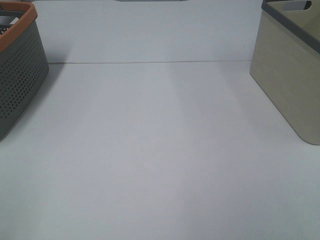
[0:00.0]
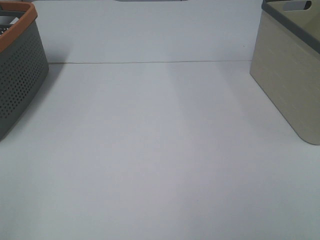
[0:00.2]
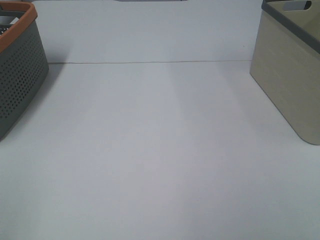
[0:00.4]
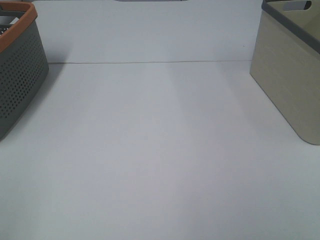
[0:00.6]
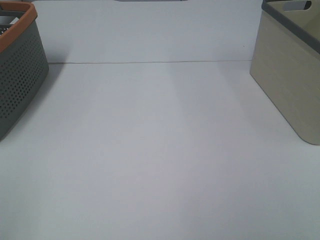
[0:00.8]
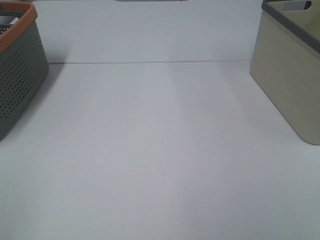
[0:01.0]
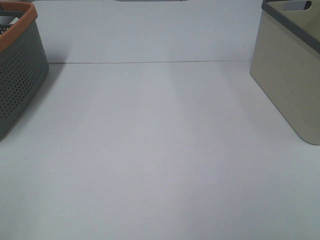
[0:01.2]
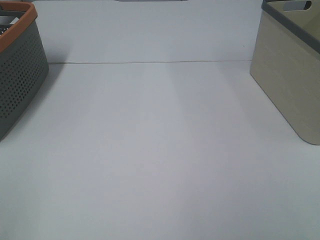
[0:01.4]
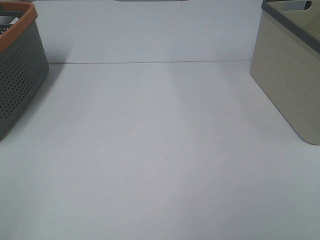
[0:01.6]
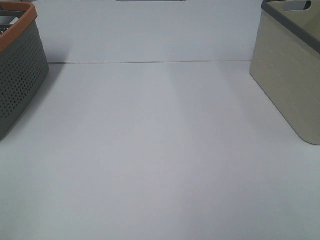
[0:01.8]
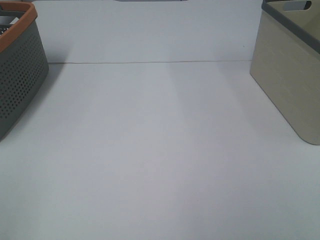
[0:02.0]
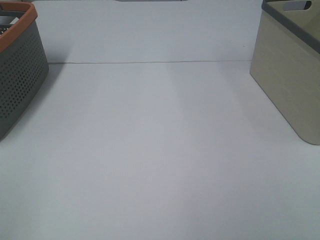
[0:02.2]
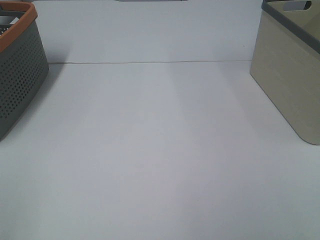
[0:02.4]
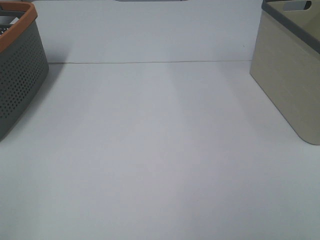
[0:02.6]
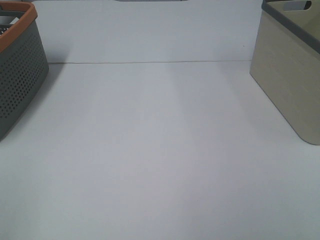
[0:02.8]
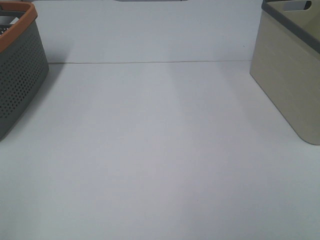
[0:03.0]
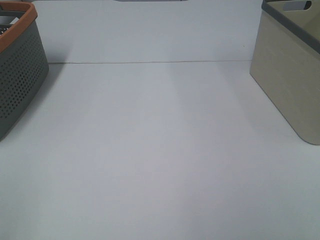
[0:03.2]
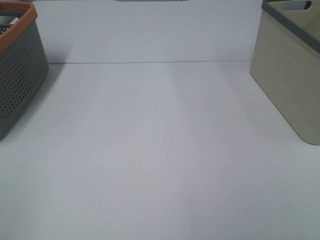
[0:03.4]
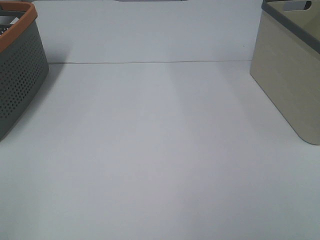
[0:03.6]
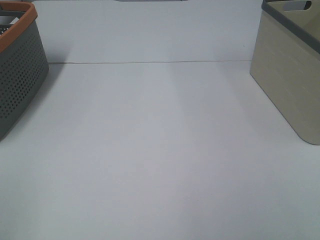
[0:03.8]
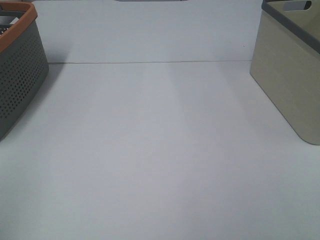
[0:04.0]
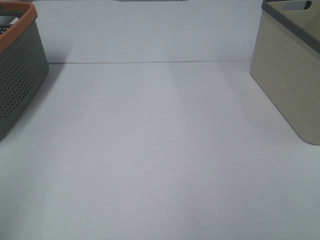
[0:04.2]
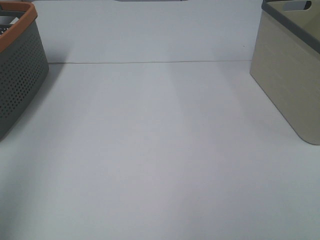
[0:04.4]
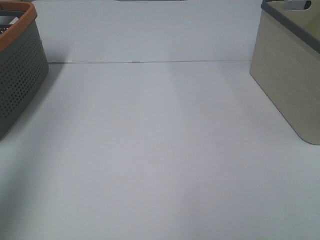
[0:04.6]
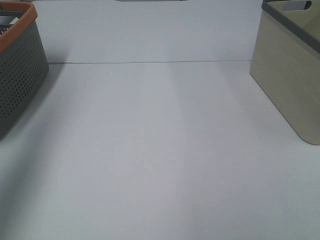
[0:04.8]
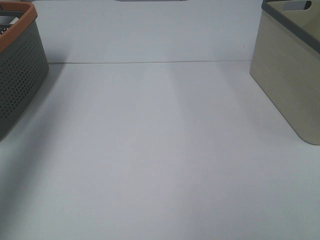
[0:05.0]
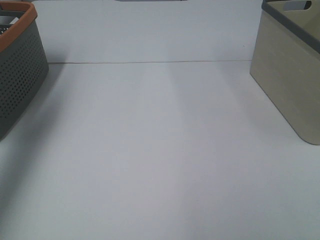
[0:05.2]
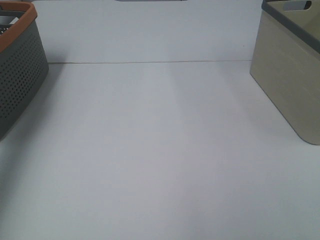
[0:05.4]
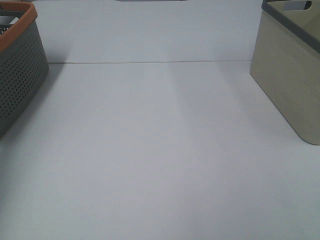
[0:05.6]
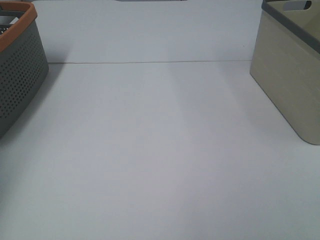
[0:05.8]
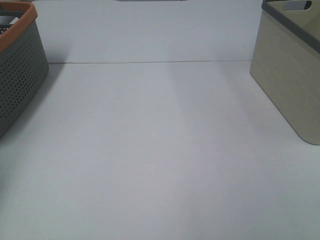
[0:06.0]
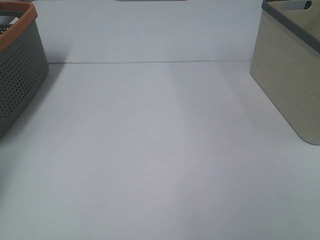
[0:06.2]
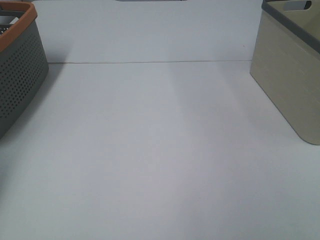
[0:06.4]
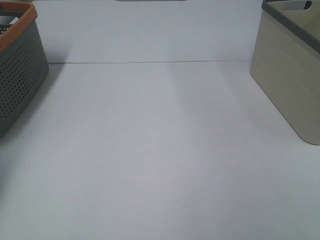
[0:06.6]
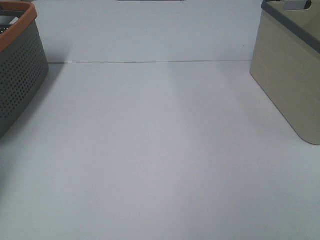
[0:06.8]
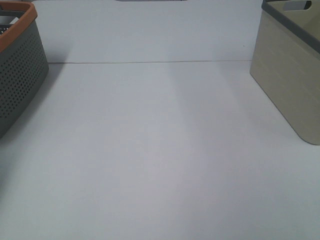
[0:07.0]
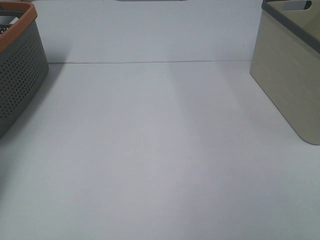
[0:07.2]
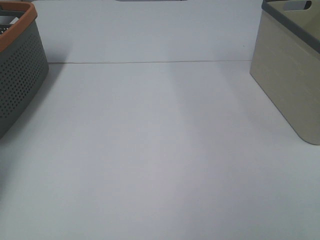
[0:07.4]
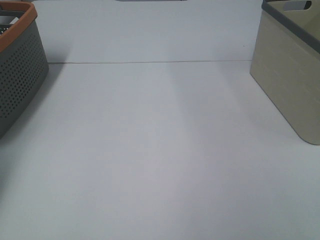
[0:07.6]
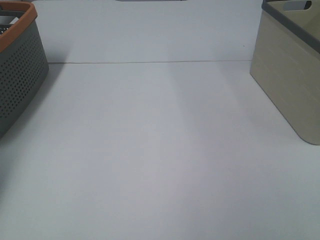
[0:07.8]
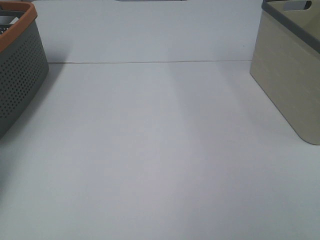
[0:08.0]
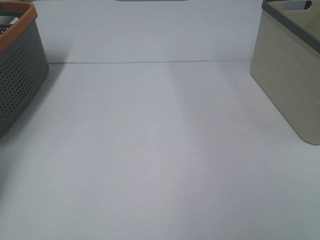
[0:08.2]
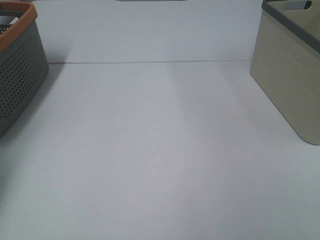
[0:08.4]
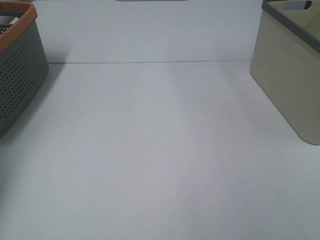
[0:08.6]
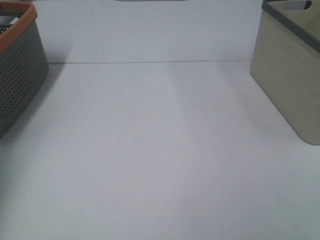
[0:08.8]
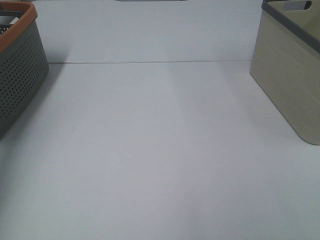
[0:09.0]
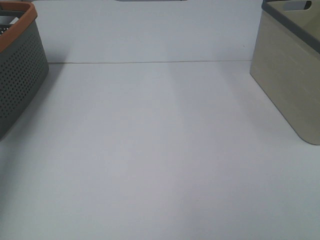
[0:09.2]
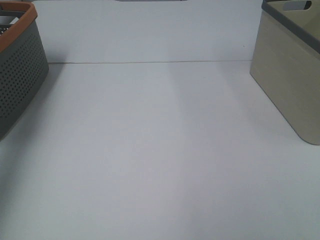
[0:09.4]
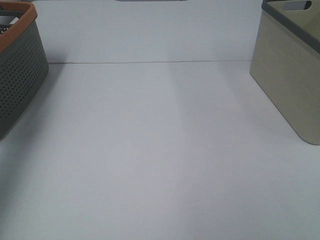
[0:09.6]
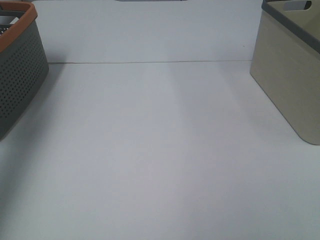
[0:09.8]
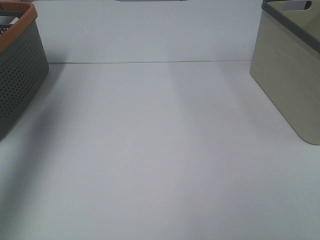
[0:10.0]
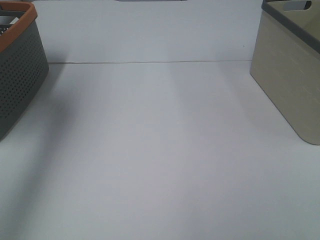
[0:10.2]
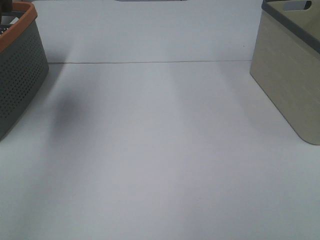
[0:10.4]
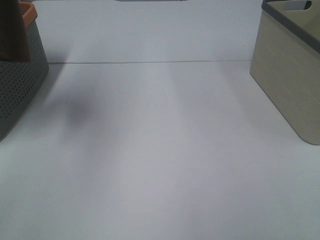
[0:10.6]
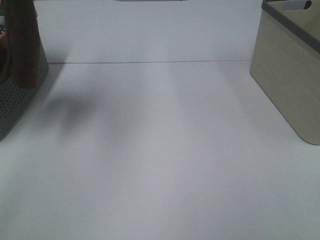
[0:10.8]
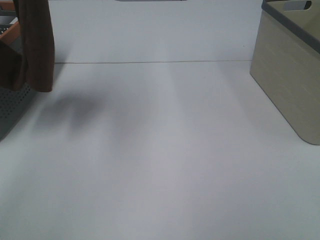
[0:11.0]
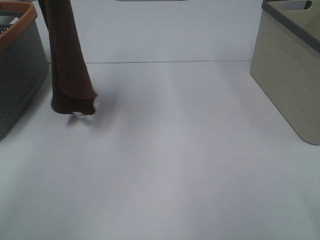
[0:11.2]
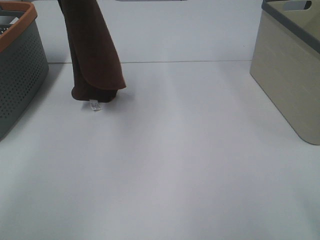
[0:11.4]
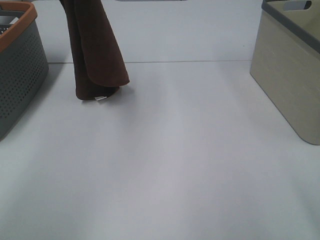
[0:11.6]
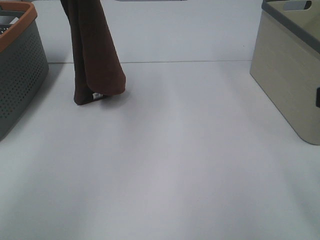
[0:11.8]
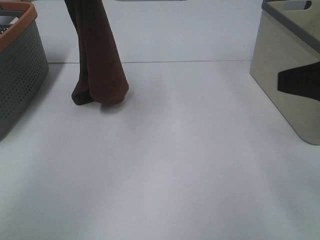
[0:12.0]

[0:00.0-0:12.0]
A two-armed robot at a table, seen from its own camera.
Task of the whole recording: Remove the towel and place it.
0:00.0 to 0:03.0: Both grippers stay about where they are.
0:03.0 to 0:04.4: The left gripper goes about 15 cm forward and upward.
0:04.4 to 0:06.0: The left gripper heads forward and to the left, covering approximately 35 cm.
0:09.0 to 0:10.4: The left gripper is displaced to the right, upward and backward by about 25 cm.
0:10.4 to 0:12.0: The left gripper goes some 25 cm downward, to the right and forward; the right gripper moves forward, approximately 20 cm.

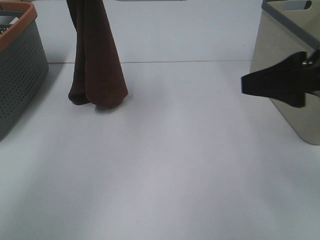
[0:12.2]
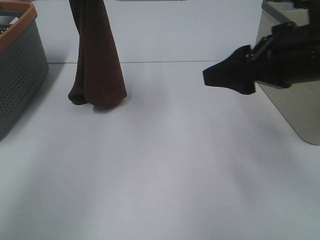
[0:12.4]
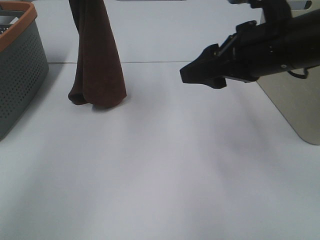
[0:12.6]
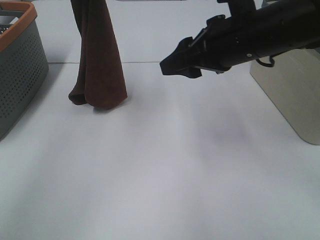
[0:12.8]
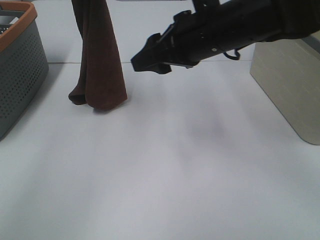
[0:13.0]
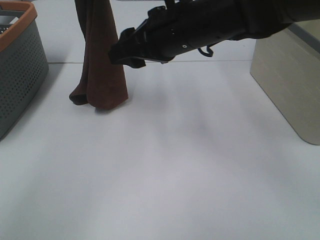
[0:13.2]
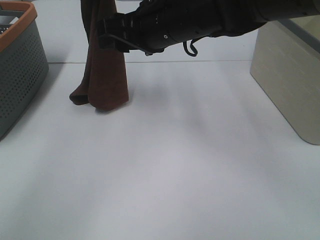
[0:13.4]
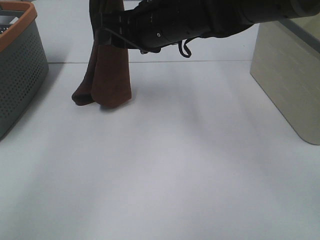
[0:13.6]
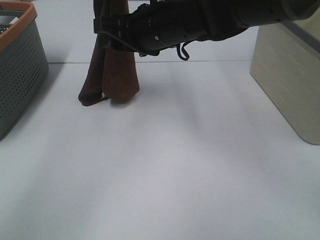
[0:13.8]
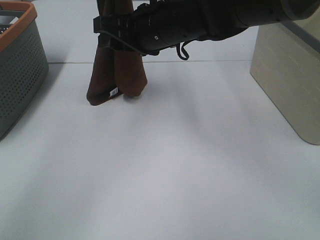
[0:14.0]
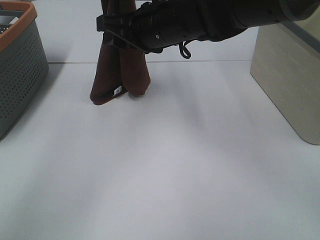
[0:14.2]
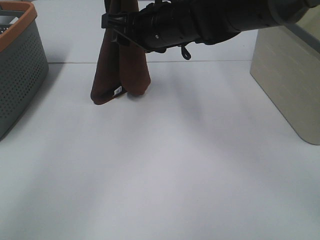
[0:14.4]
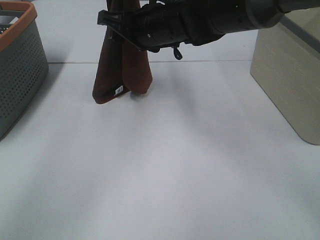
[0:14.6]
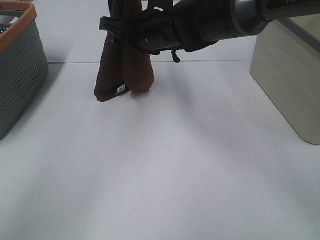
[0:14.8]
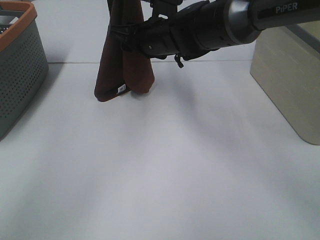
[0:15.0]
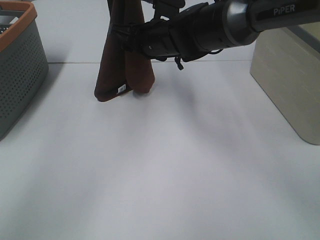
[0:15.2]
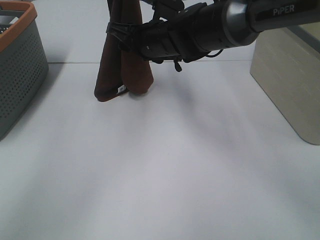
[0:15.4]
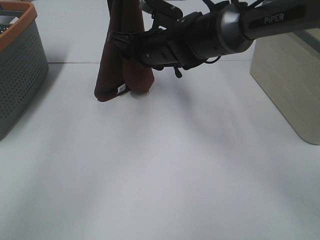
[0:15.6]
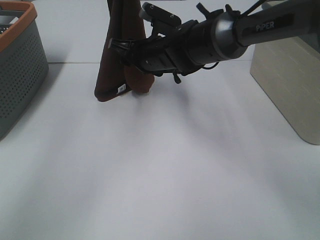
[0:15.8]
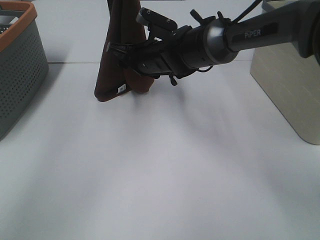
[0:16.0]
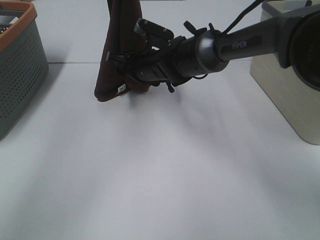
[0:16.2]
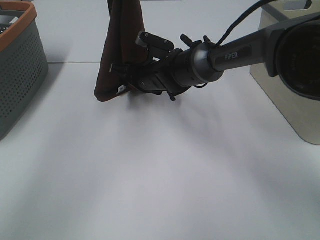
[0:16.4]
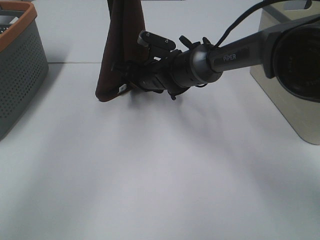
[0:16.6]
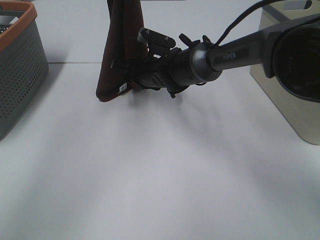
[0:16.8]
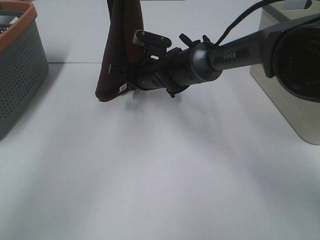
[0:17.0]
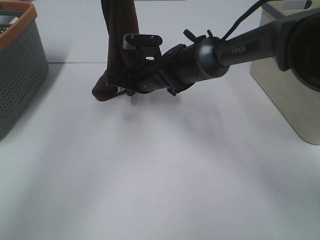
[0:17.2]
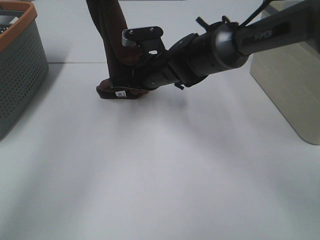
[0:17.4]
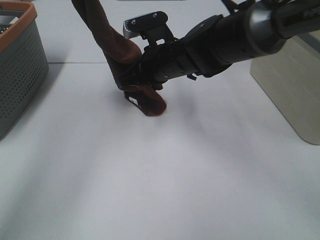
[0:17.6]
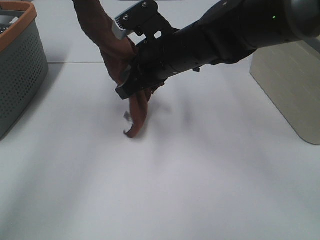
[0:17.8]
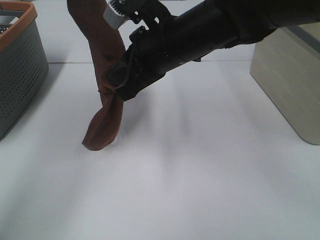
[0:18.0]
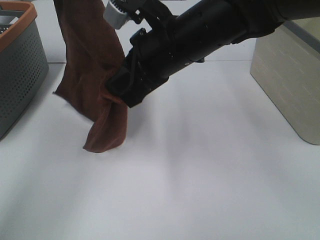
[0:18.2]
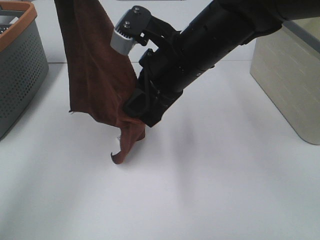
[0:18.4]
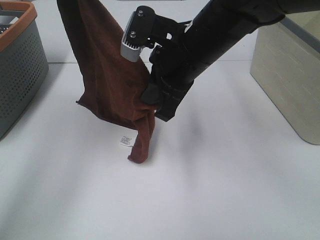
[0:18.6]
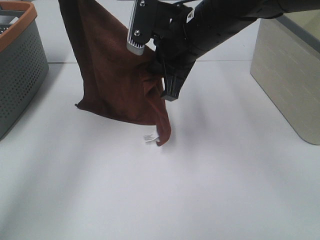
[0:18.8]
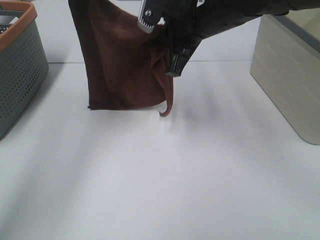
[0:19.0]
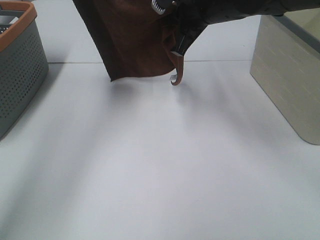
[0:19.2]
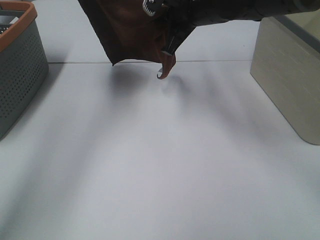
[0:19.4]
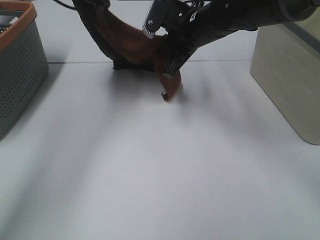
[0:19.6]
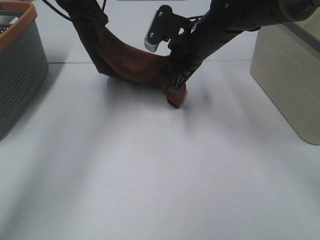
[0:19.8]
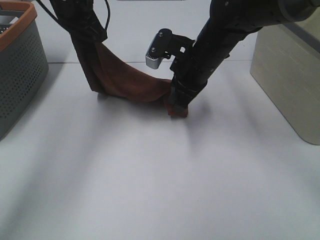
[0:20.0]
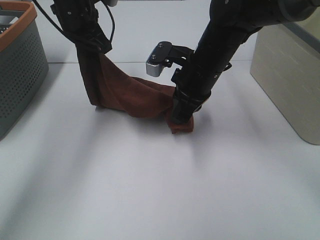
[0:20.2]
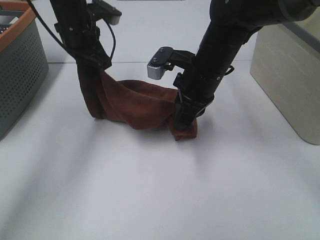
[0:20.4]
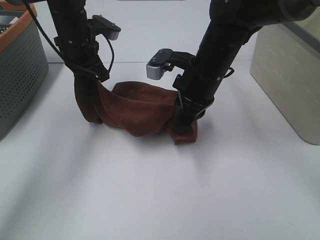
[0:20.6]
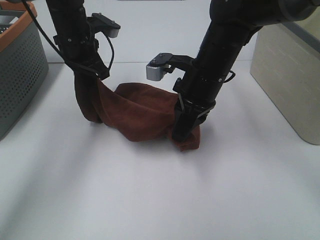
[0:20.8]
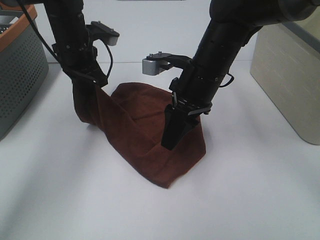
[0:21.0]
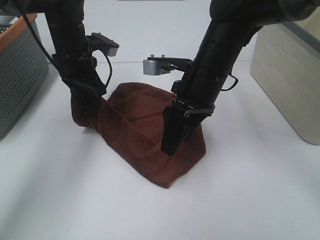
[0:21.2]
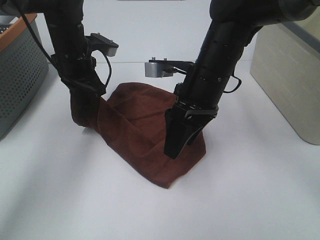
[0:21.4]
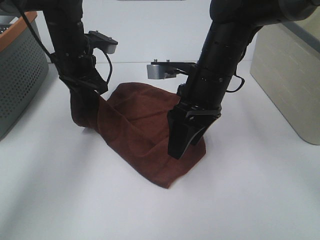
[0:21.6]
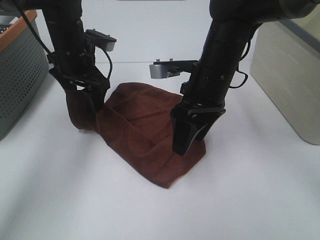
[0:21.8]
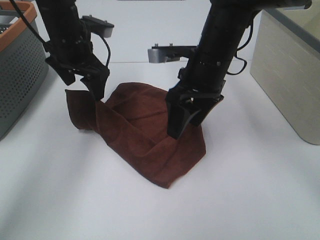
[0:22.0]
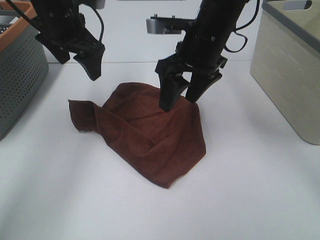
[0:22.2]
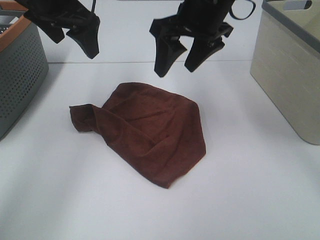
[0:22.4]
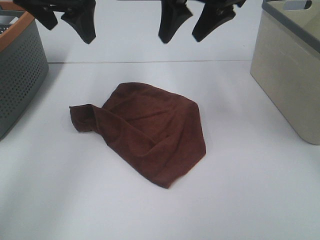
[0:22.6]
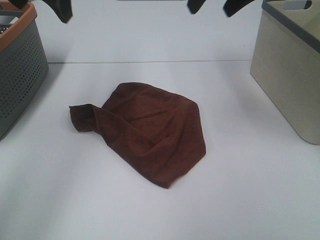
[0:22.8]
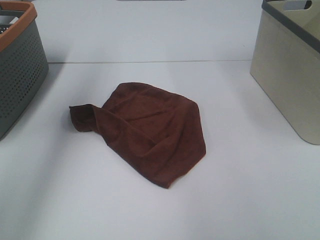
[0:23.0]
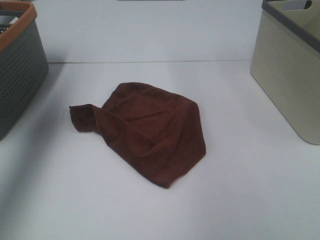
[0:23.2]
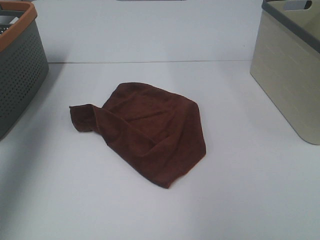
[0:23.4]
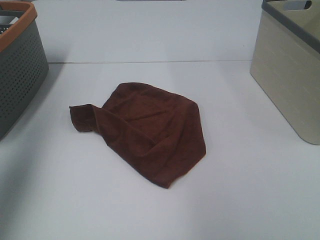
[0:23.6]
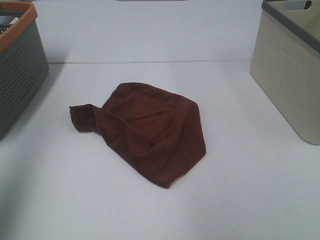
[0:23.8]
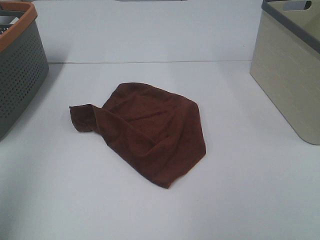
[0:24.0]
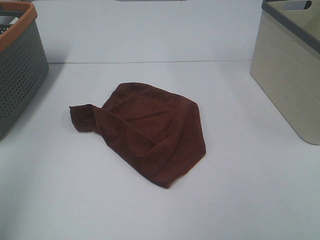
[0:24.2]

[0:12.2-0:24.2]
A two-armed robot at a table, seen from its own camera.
Task of the whole recording: Remove the towel and place it.
Step, 0:12.2 to 0:15.2: Right hand: grab a corner of the brown towel and straighten it.
Step, 0:15.4 to 0:16.8: Right hand: spread the brown towel flat on the table.
Step, 0:15.4 to 0:17.4: Left hand: spread the brown towel flat on the table.
0:12.2 to 0:13.8: The right gripper moves to the left and forward, roughly 25 cm.
0:13.8 to 0:15.2: The right gripper moves forward, some 5 cm.
0:15.2 to 0:16.6: The right gripper is displaced downward by some 10 cm.
0:16.6 to 0:18.2: The left gripper goes approximately 5 cm to the left. Meanwhile the right gripper shifts some 20 cm upward and backward, and closes.
0:18.2 to 0:19.8: The left gripper goes roughly 10 cm downward, while the right gripper travels forward by roughly 10 cm.
0:19.8 to 0:21.2: The left gripper moves downward, roughly 10 cm; the right gripper is displaced backward by some 5 cm, and opens its fingers.
0:21.2 to 0:22.6: The grippers both shift upward by about 15 cm. The left gripper opens its fingers.
0:22.6 to 0:24.2: The right gripper travels backward and to the right by approximately 40 cm. The left gripper goes approximately 35 cm backward and to the left.
